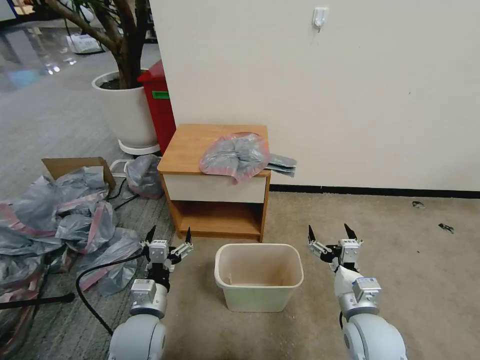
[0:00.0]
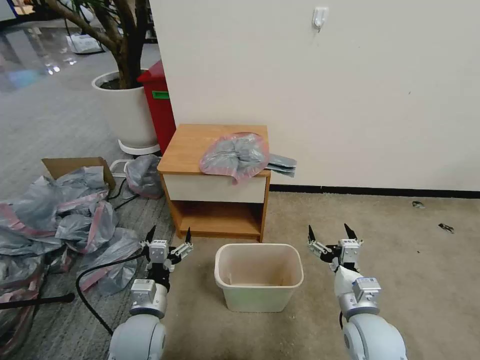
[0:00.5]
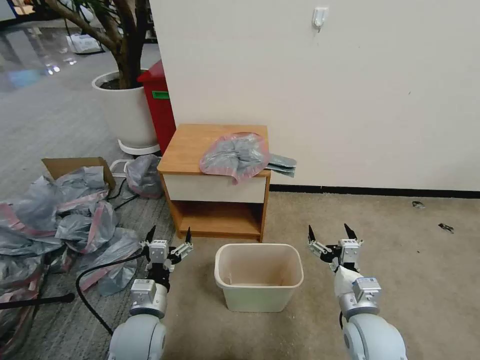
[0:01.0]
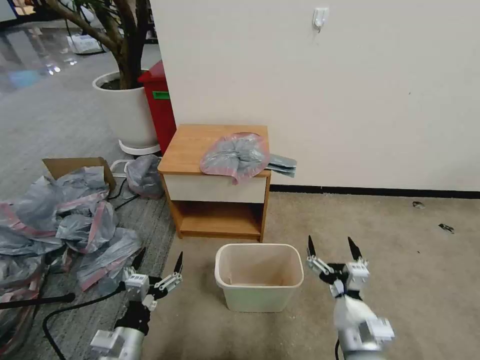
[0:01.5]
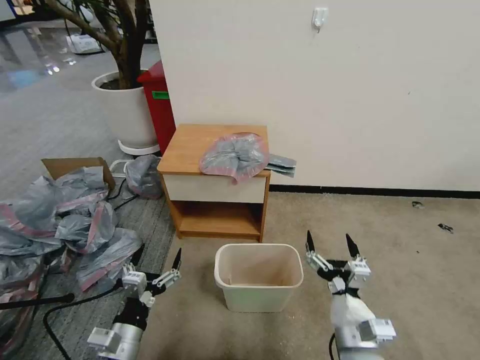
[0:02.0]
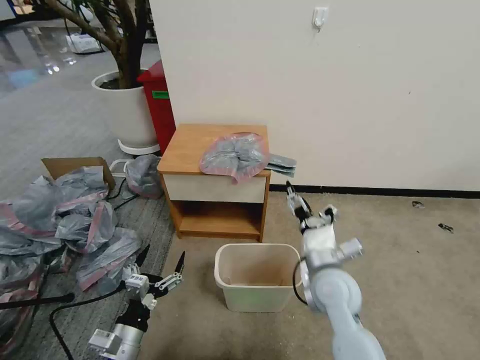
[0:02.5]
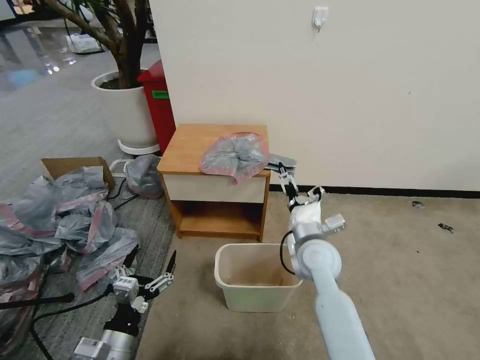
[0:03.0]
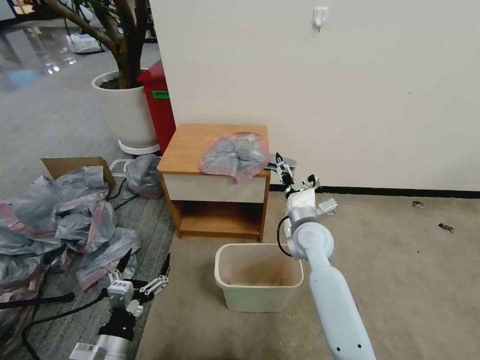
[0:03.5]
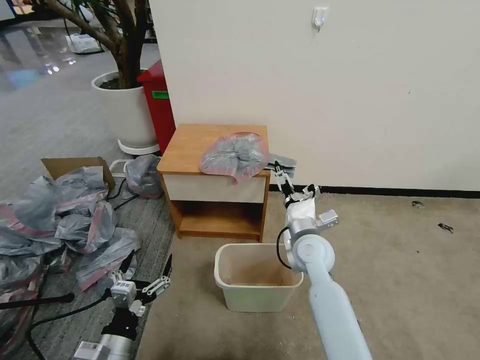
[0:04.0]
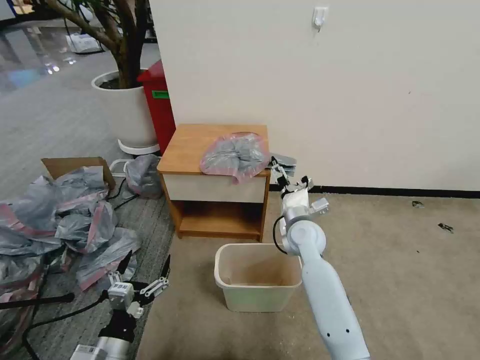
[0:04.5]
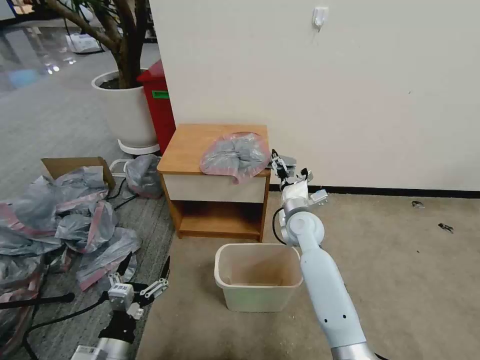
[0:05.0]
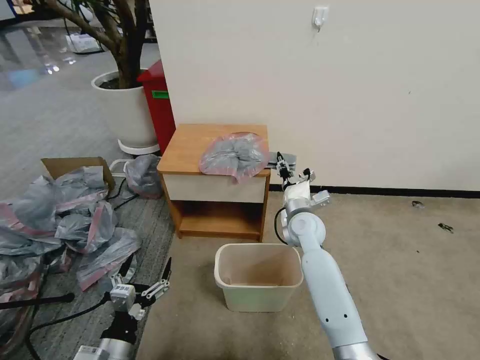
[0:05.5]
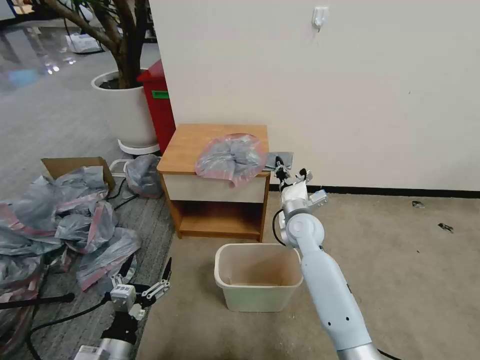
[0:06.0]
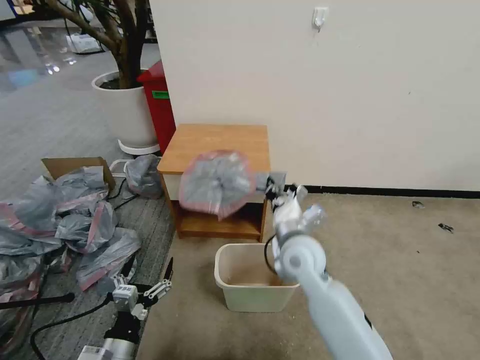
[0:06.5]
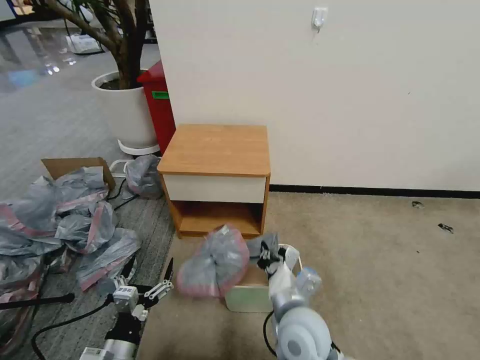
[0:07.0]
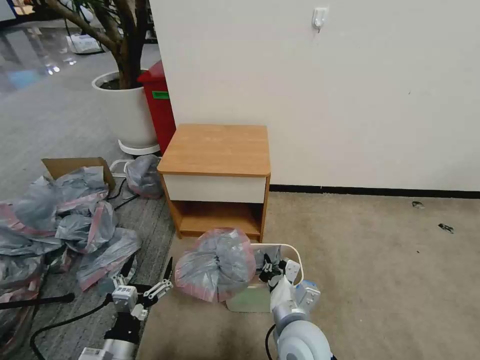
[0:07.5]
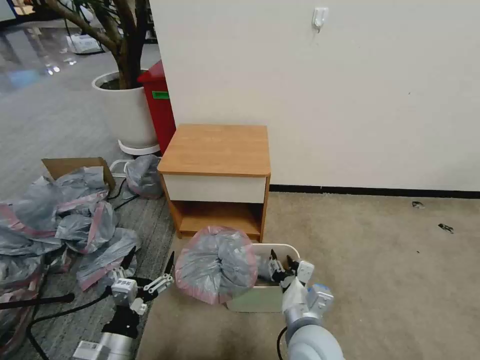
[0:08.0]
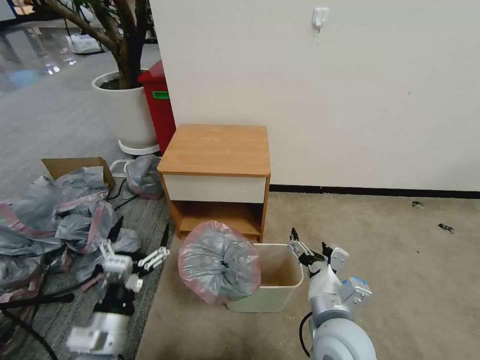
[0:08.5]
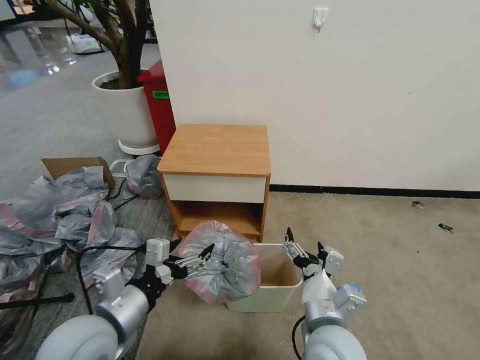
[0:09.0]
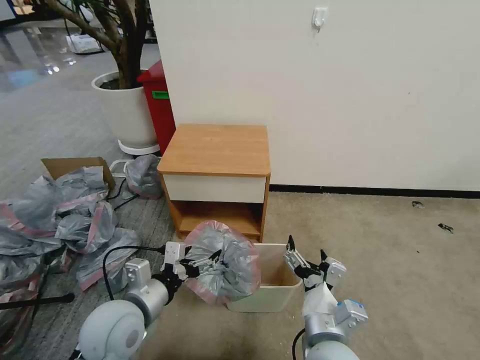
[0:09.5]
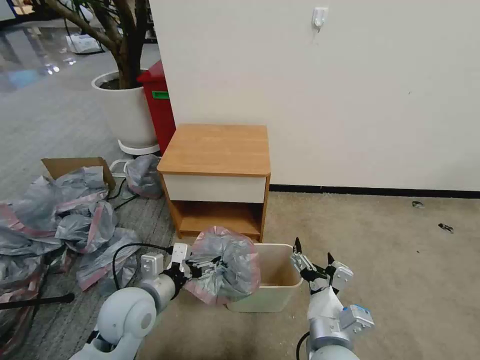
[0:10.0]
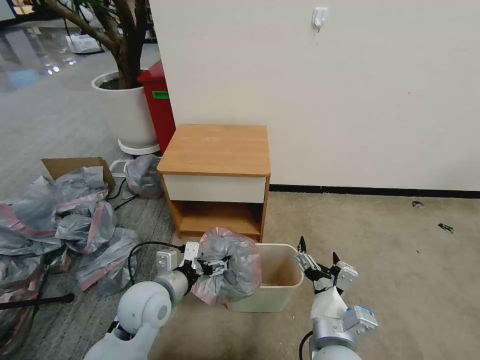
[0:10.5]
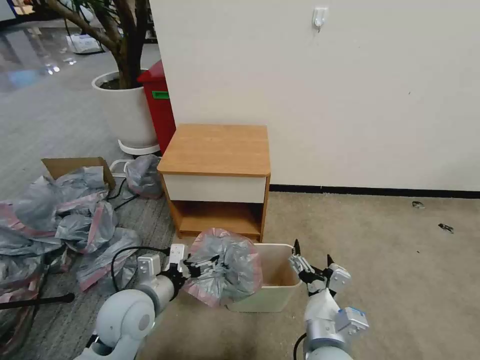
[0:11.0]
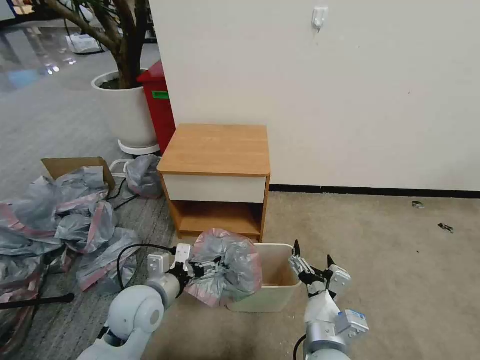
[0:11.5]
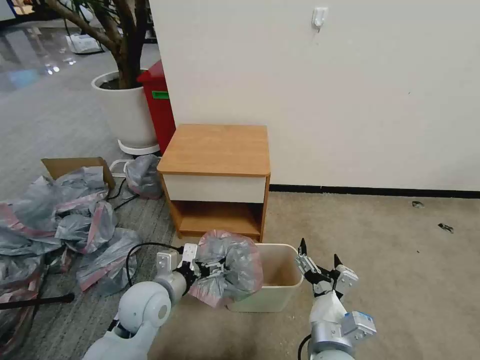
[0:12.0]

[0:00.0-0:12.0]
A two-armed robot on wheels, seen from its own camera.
Task of the whole recording: Pick up the garbage bag from the table and place it over the trash can.
0:02.0 to 0:04.0: The right gripper shifts about 25 cm forward.
0:04.0 to 0:06.0: The right gripper heads forward, covering roughly 5 cm, and closes its fingers.
0:06.0 to 0:08.0: The right gripper is displaced backward by about 25 cm, and opens.
0:08.0 to 0:10.0: The right gripper changes place by about 5 cm, and opens up, while the left gripper moves forward and upward, about 15 cm.
0:10.0 to 0:12.0: The grippers move only a little.

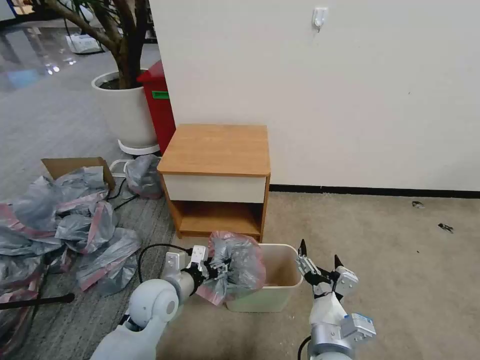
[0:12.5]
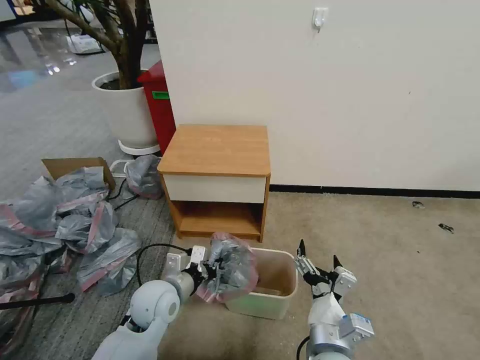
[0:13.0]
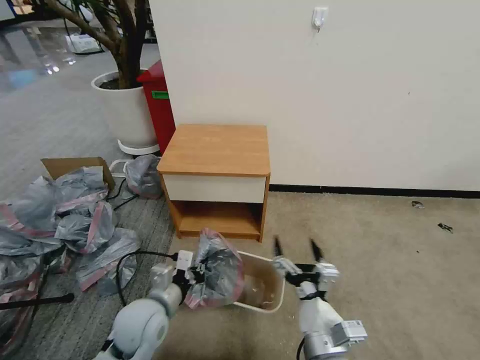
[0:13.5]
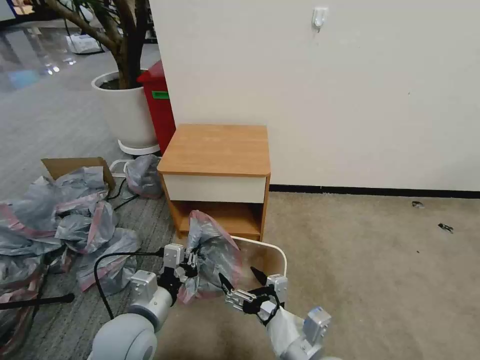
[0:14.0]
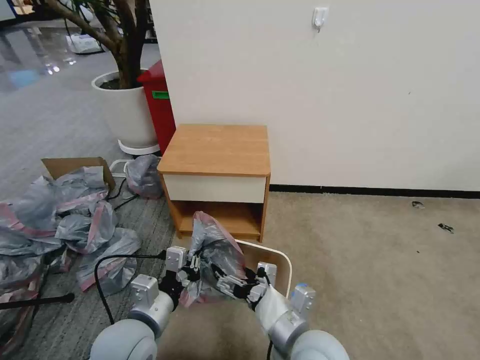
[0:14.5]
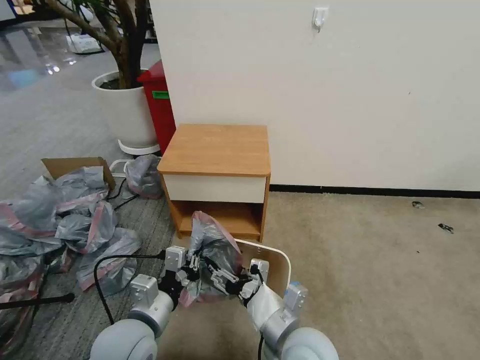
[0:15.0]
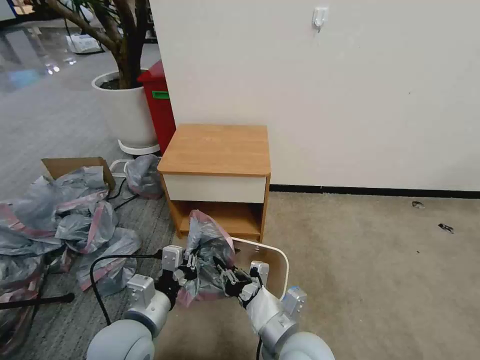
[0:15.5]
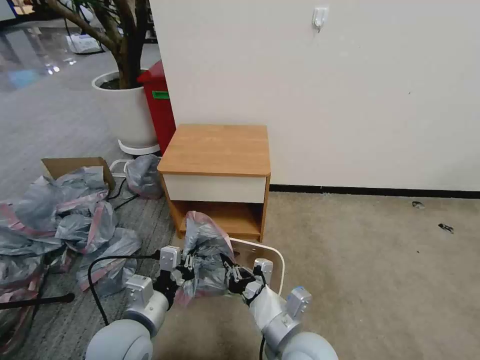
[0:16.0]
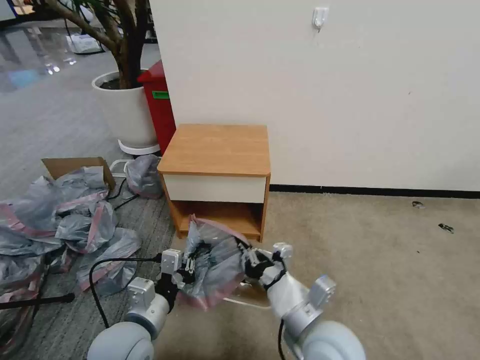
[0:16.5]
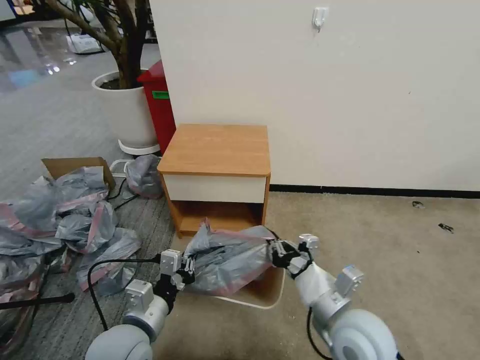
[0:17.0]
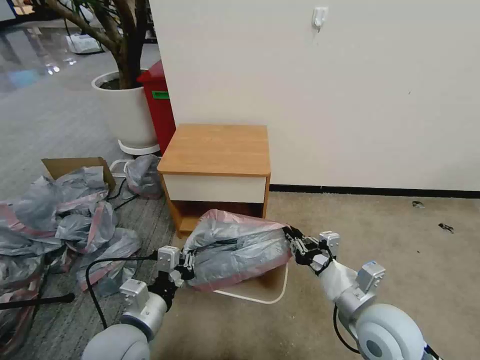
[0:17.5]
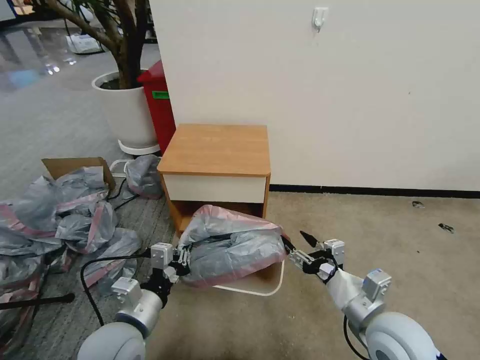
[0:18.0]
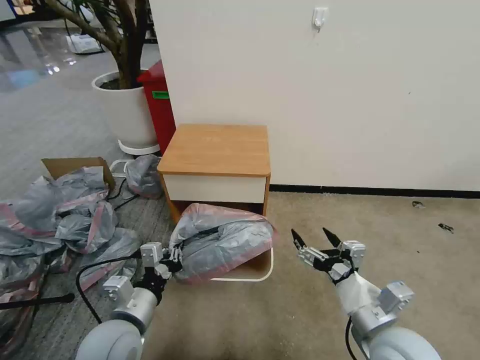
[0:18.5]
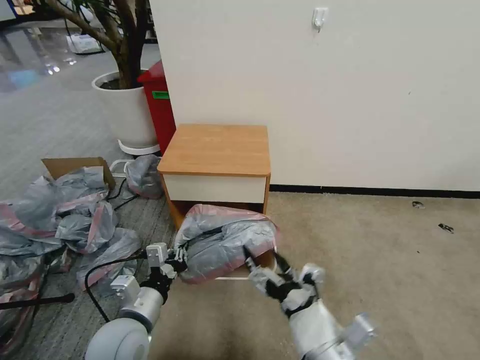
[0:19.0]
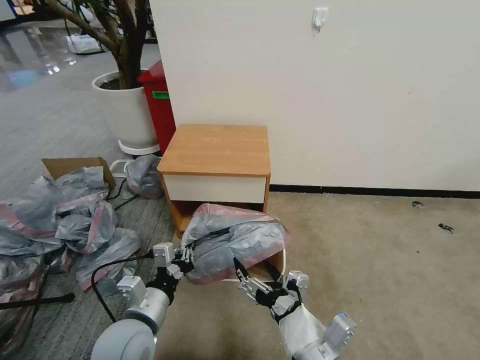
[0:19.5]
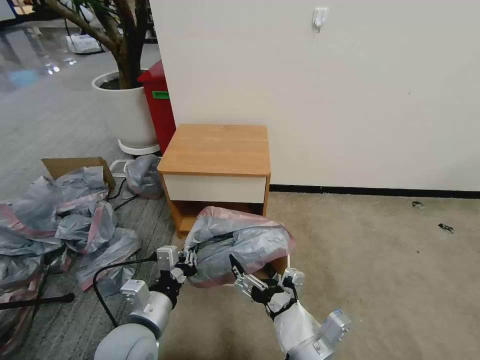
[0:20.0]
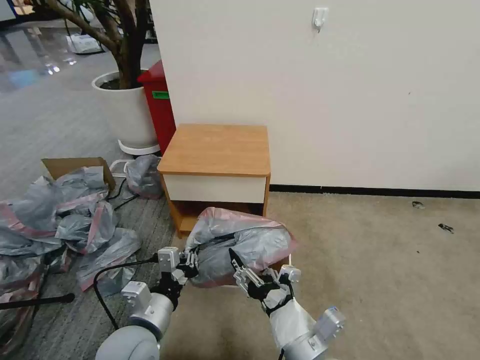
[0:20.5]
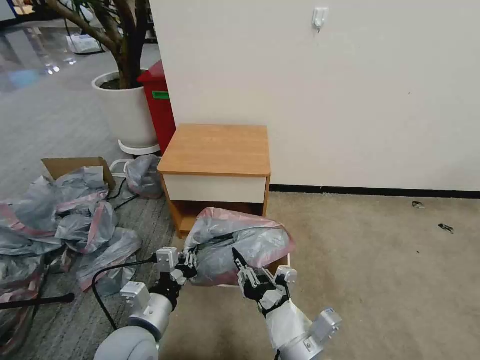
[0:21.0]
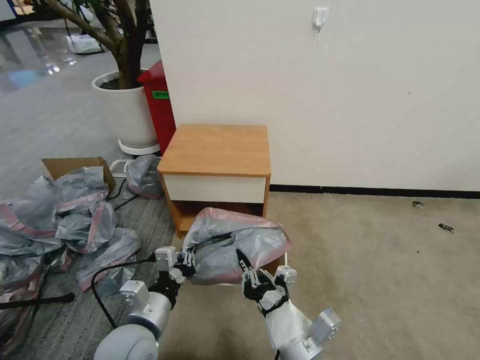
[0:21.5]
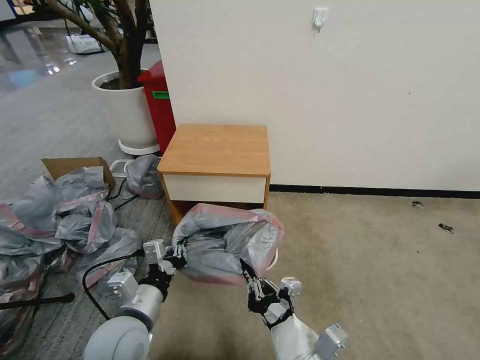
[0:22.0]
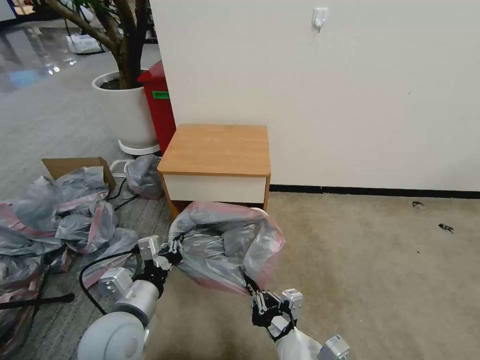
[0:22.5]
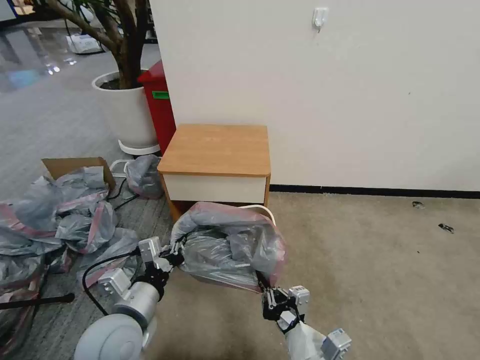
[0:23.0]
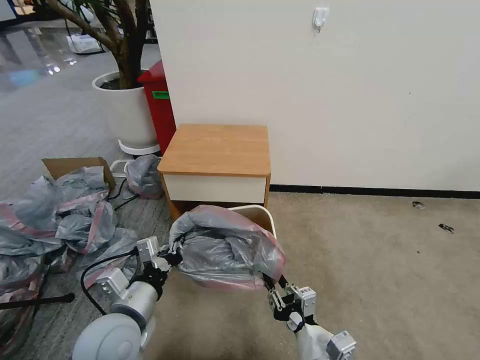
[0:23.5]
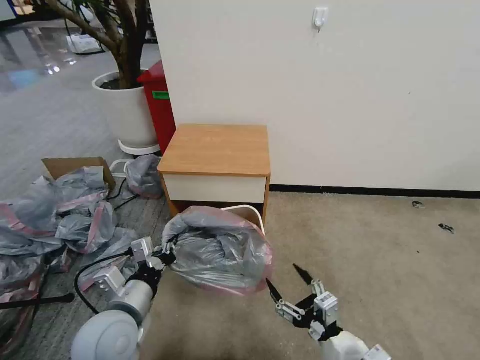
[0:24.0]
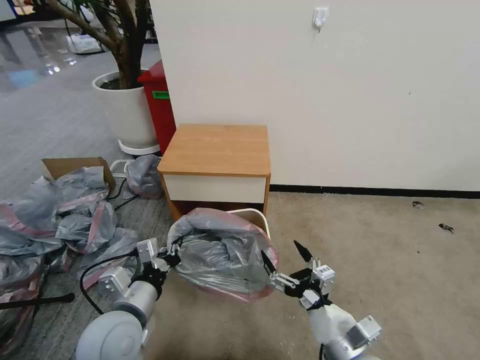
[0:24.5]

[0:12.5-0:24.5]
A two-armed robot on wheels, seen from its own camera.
Task of the whole recording: Pick up the garbage bag from the table and place it over the trash can.
0:12.5 to 0:14.5: The left gripper moves backward and upward, some 10 cm, and closes.
0:14.5 to 0:16.5: The right gripper closes up.
0:16.5 to 0:18.5: The right gripper shifts approximately 10 cm to the right, and opens.
0:18.5 to 0:20.5: The right gripper travels to the left by some 10 cm.
0:20.5 to 0:22.5: The right gripper closes its fingers.
0:22.5 to 0:24.5: The right gripper moves to the right, some 5 cm, and opens up.

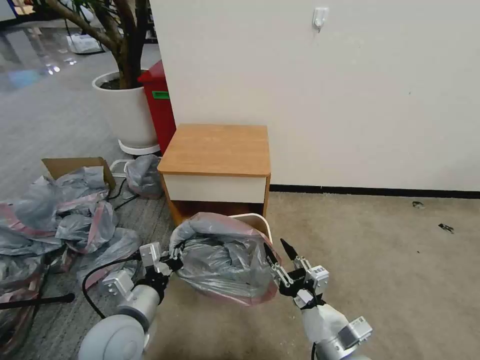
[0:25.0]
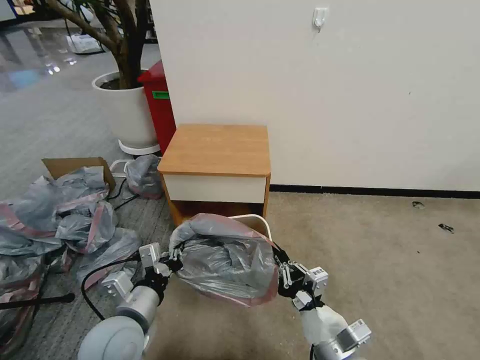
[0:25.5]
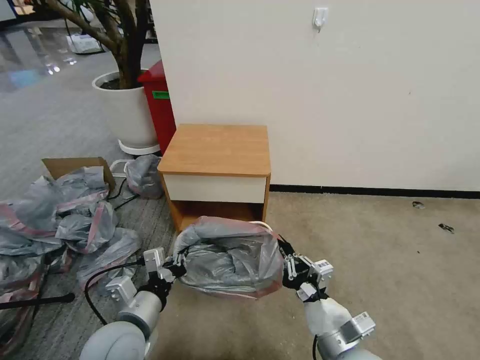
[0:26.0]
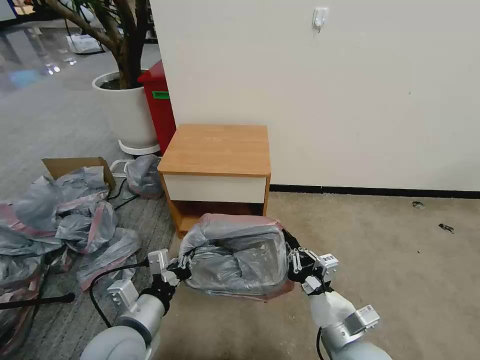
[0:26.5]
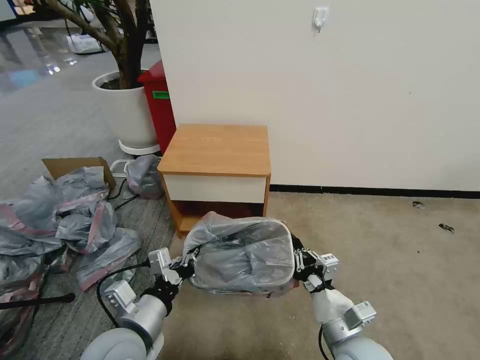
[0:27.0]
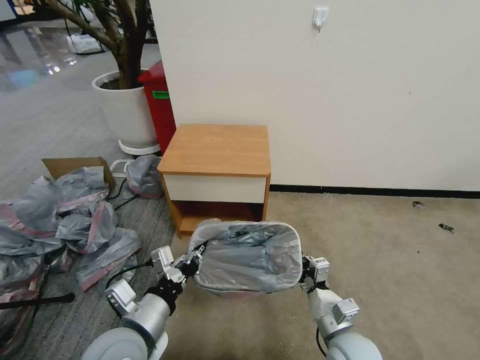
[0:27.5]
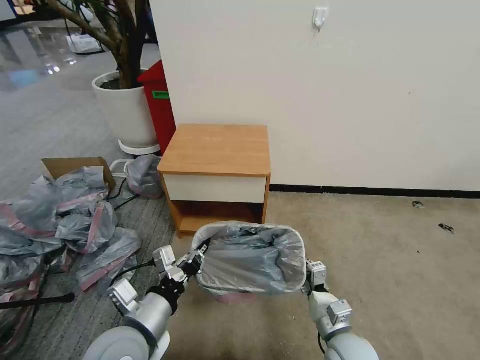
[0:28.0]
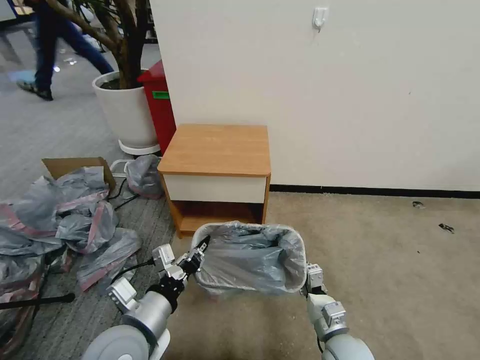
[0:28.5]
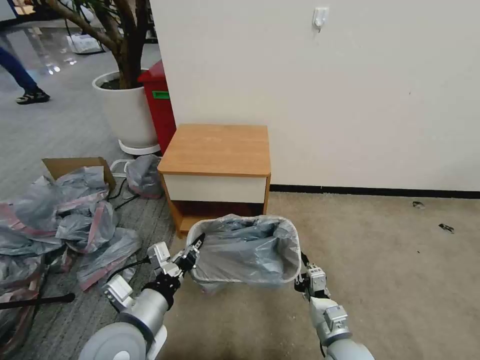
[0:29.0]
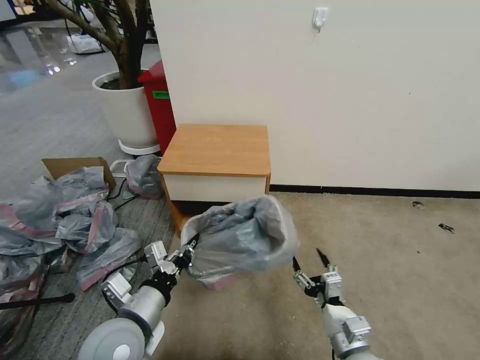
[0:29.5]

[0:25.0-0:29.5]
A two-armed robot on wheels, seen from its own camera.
Task of the whole recording: Pick up the garbage bag from the table and place it over the trash can.
0:25.0 to 0:27.0: The right gripper closes up.
0:27.0 to 0:29.5: The right gripper opens.
